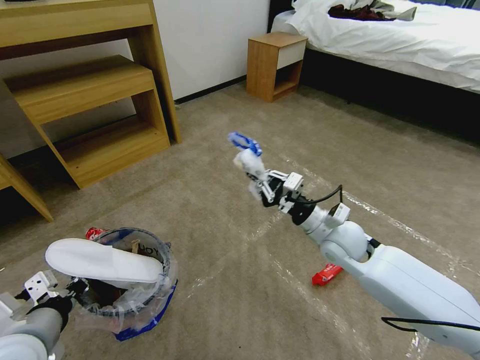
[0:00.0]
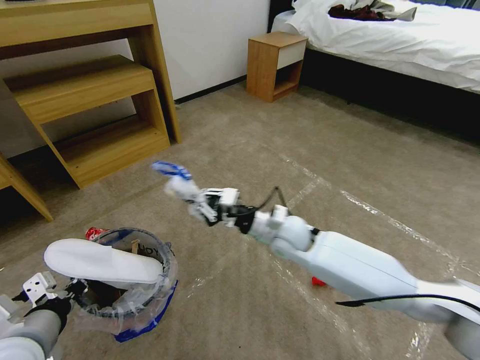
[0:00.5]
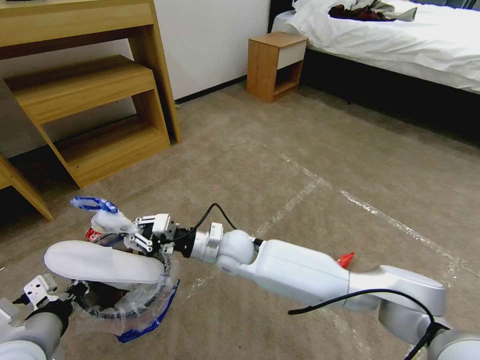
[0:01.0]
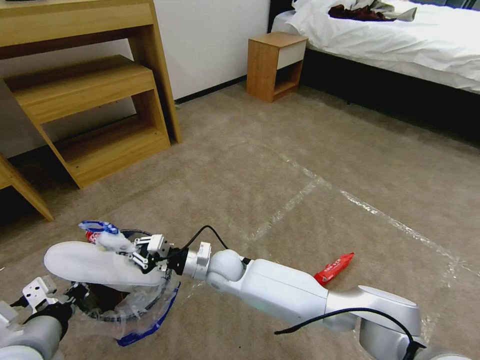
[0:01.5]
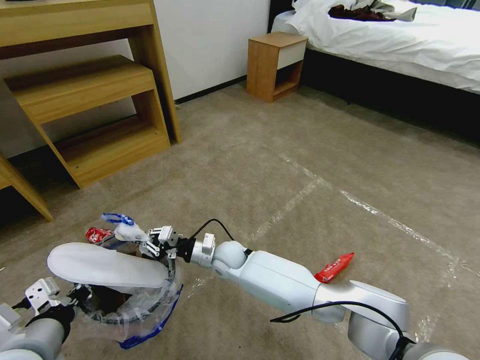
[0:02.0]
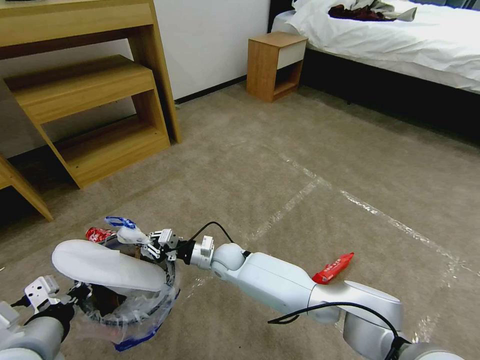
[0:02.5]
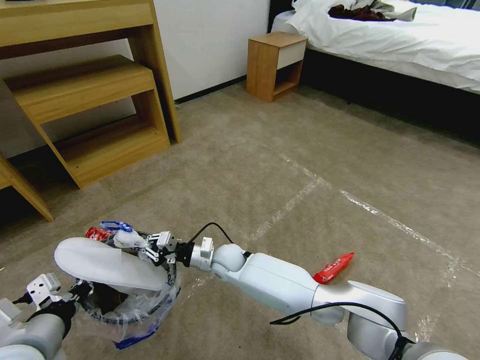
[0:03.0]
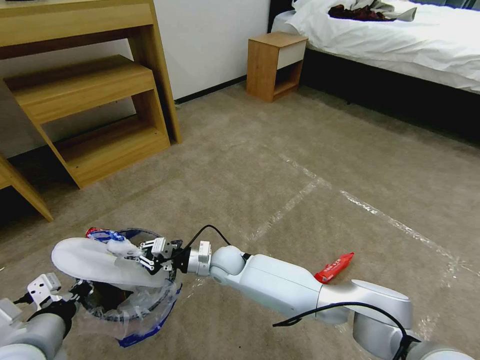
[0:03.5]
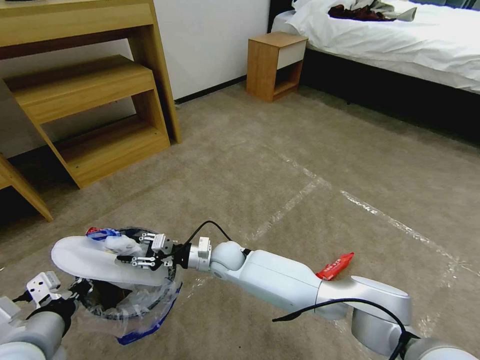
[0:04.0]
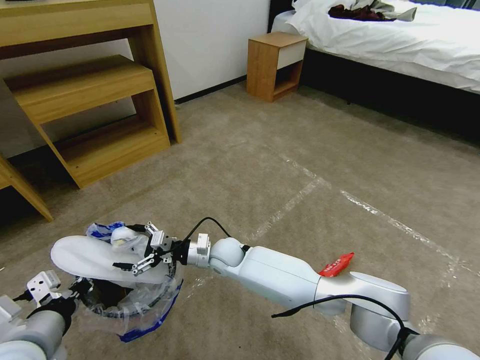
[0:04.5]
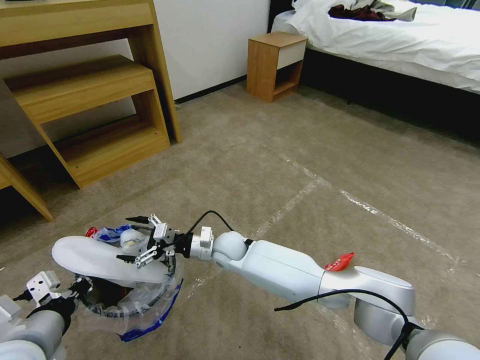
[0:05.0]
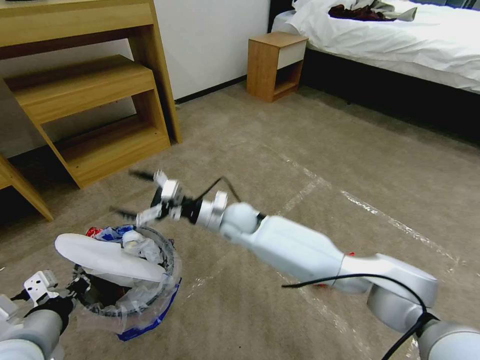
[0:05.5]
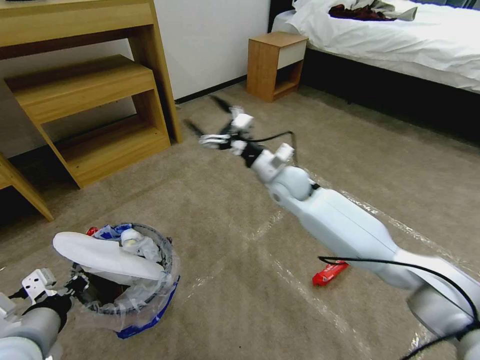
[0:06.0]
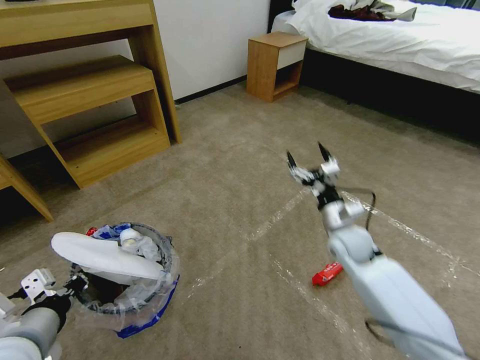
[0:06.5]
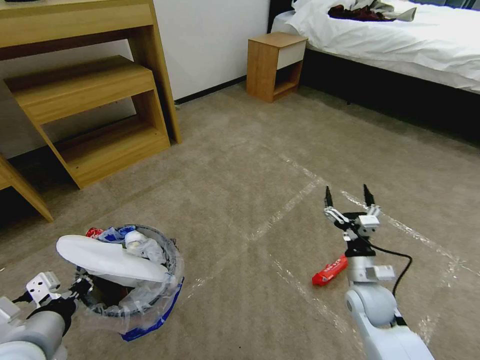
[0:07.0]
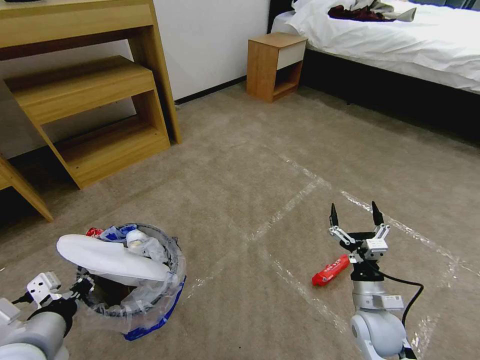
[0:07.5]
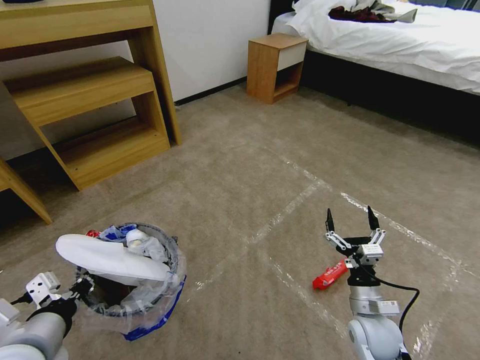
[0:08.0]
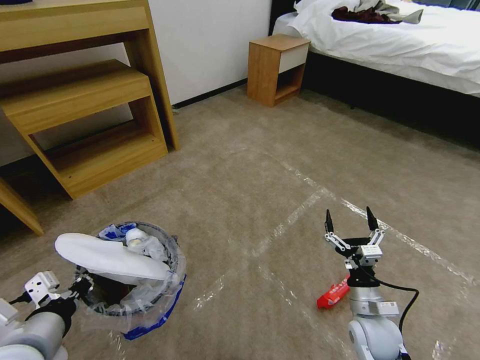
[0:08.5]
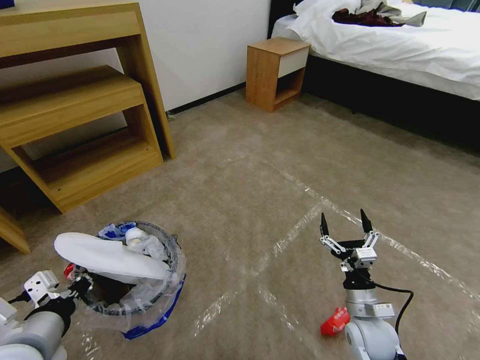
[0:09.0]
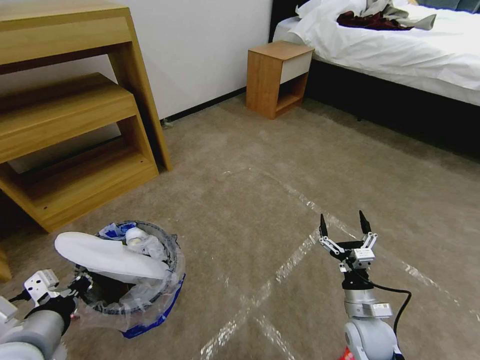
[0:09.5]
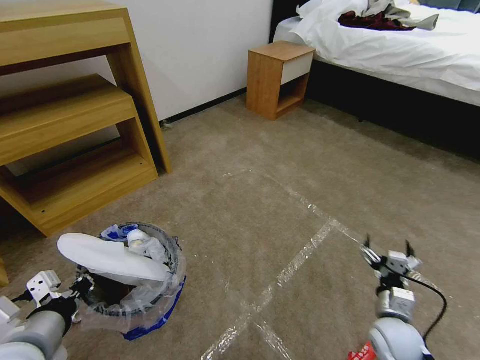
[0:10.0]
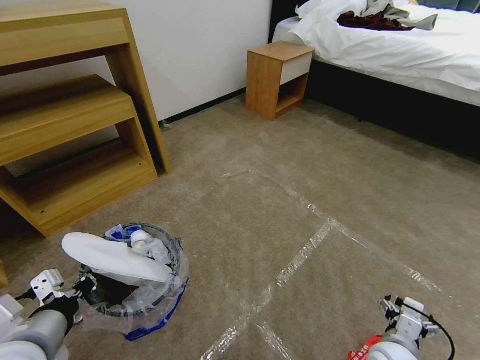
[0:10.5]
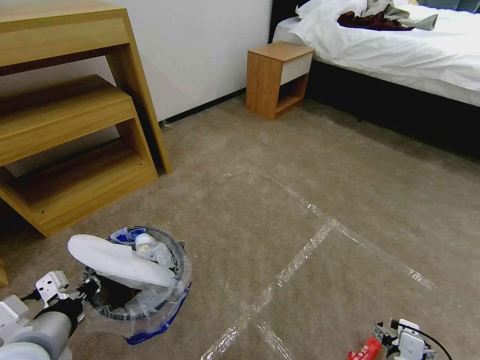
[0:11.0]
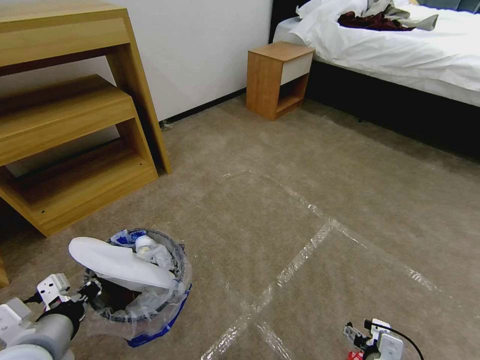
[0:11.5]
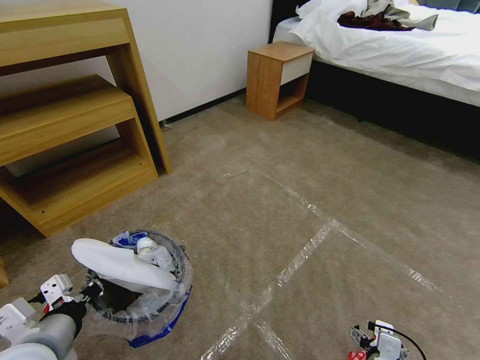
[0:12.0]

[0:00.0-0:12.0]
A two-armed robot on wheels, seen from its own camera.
Task of the whole recording: Pick up the trash bin and place the garbage on the floor into it.
0.0 to 2.0 s: The right gripper shifts approximately 30 cm to the left and downward.
2.0 to 4.0 s: The right gripper opens its fingers.
4.0 to 6.0 s: The right gripper shifts about 25 cm upward, to the right and forward, and opens.
6.0 to 8.0 s: The right gripper shifts approximately 35 cm backward, downward and to the right.
8.0 to 10.0 s: The right gripper shifts some 5 cm to the right.
10.0 to 12.0 s: The right gripper heads backward and to the left, covering approximately 10 cm.

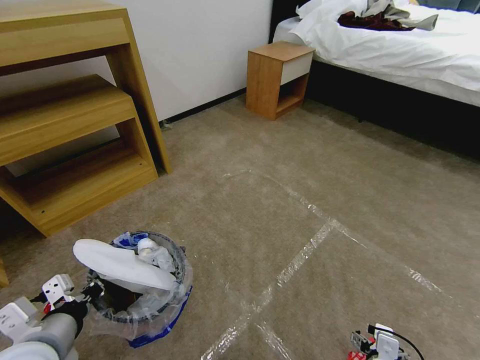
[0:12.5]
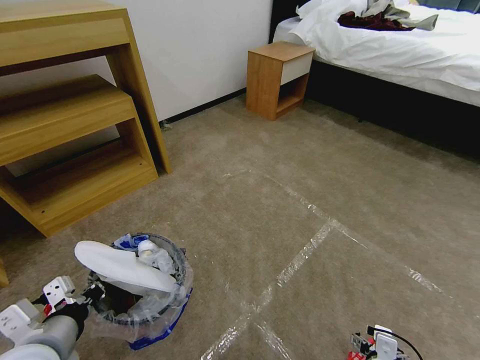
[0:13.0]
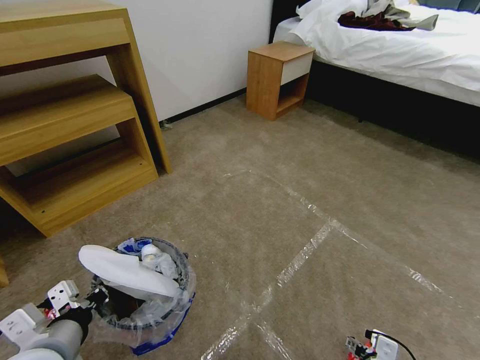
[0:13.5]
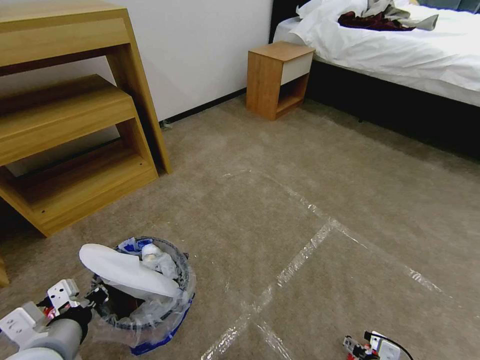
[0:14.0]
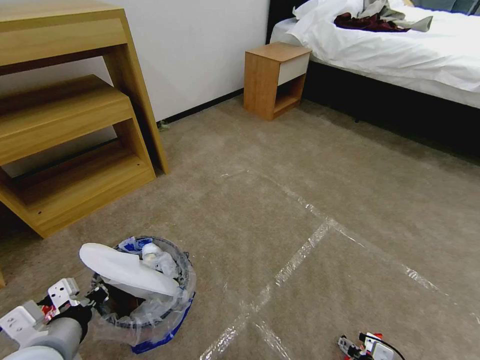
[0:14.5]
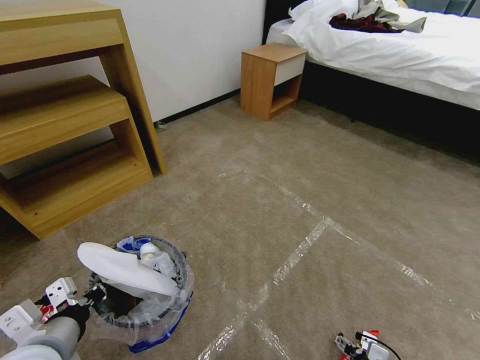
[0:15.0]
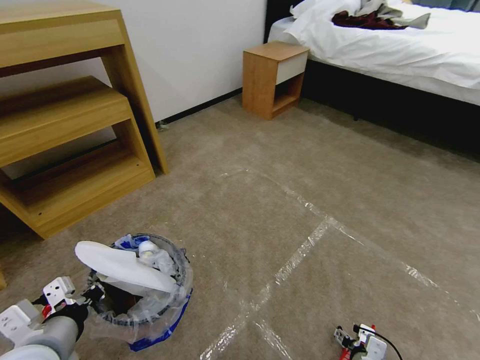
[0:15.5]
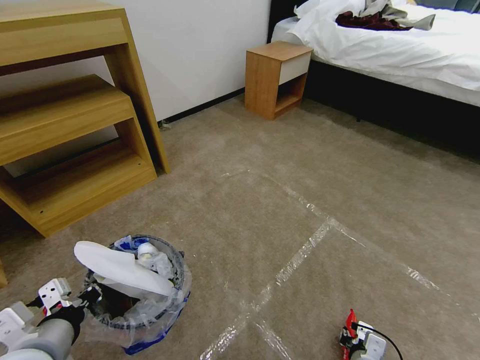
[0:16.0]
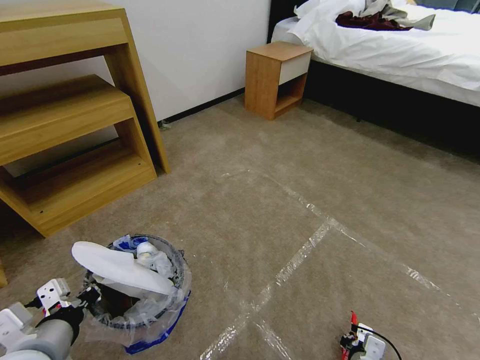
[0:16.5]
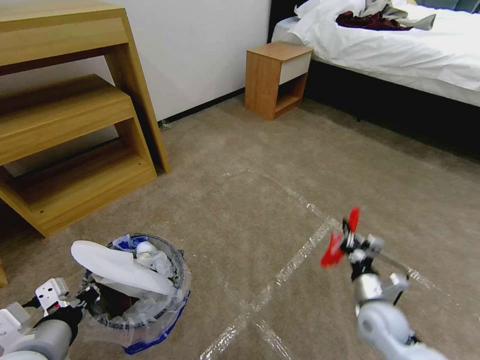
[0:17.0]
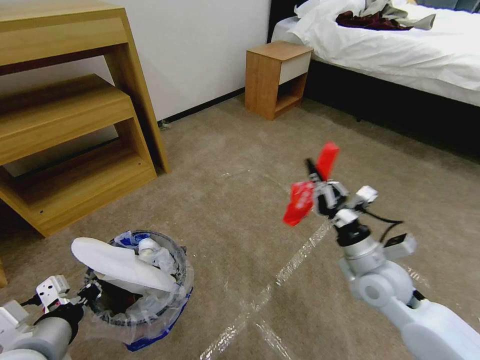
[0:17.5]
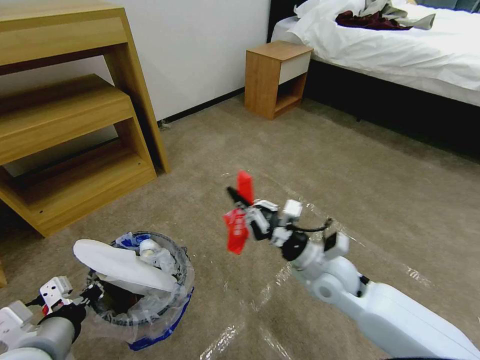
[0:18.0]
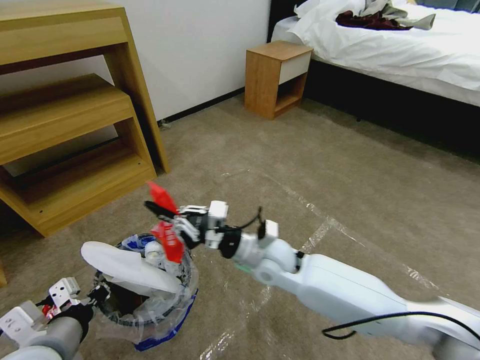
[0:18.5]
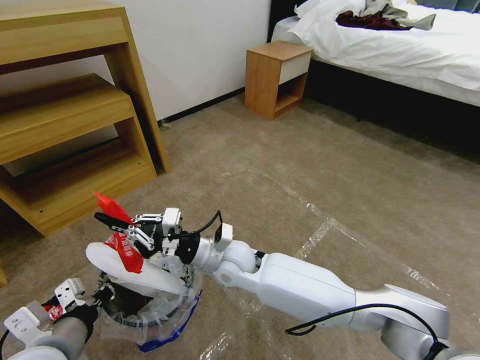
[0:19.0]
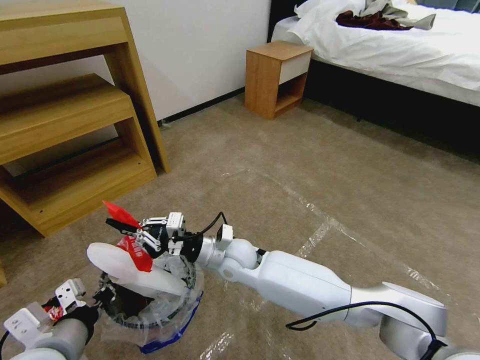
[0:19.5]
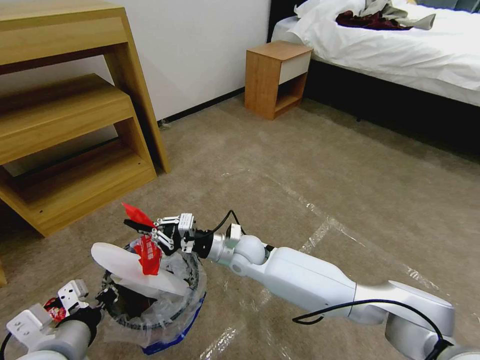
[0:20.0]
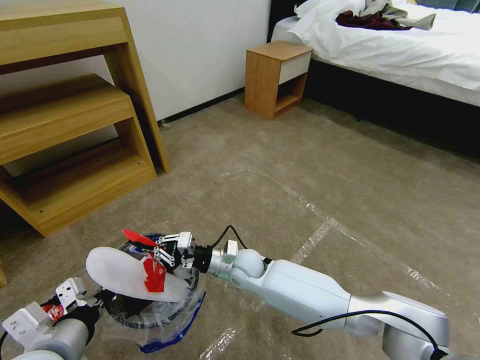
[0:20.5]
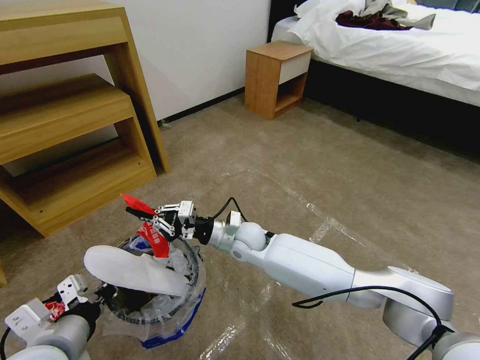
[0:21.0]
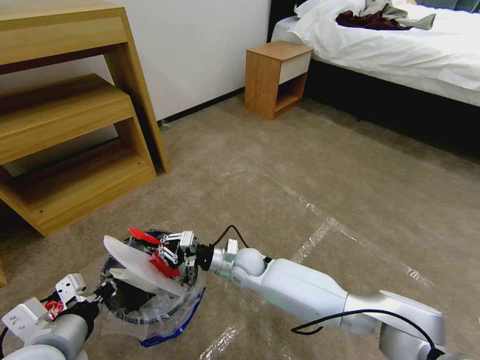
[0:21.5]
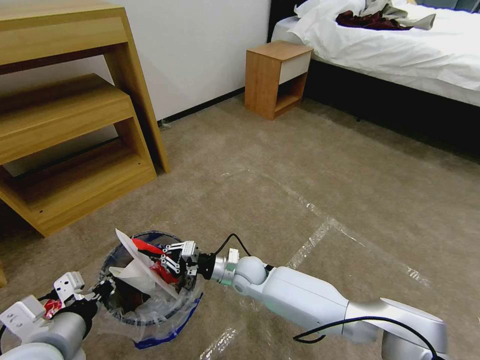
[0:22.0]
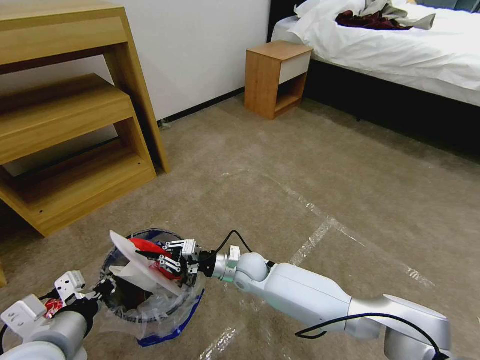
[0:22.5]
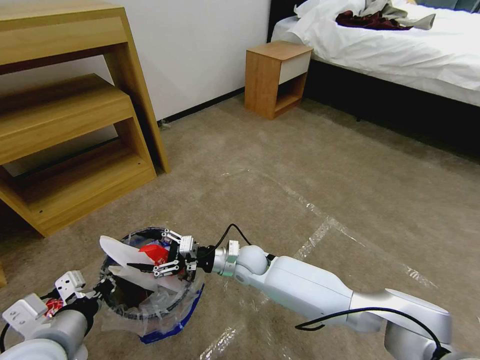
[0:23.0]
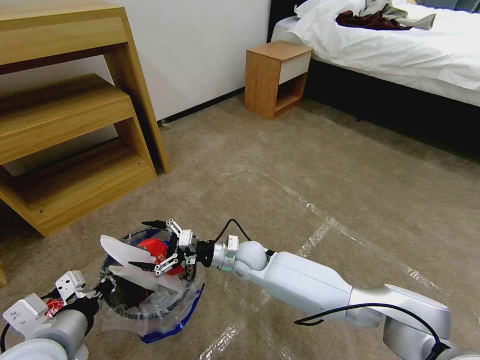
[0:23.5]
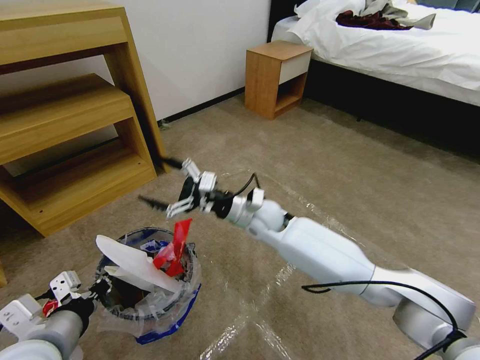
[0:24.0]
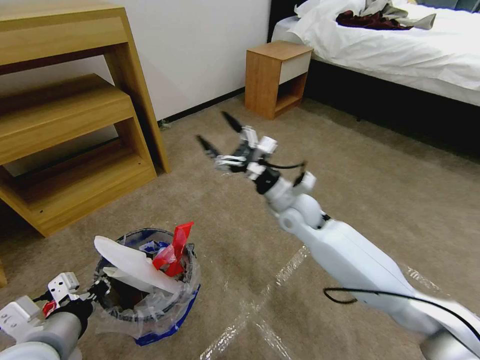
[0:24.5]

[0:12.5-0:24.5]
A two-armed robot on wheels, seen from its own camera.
Task of the whole recording: Pick up the trash bin and place the garbage on the floor into it.
12.5 to 14.5 s: The right gripper moves downward, approximately 10 cm.
14.5 to 16.5 s: The right gripper closes its fingers.
16.5 to 18.5 s: The right gripper heads upward, forward and to the left, covering roughly 35 cm.
18.5 to 20.5 s: The right gripper moves to the left and downward, approximately 15 cm.
20.5 to 22.5 s: The right gripper reaches approximately 5 cm upward, then returns.
22.5 to 24.5 s: The right gripper goes about 20 cm upward and to the right, and opens up.

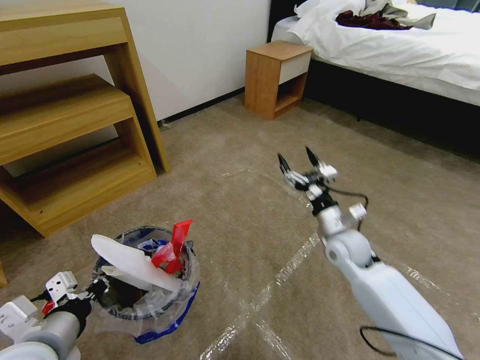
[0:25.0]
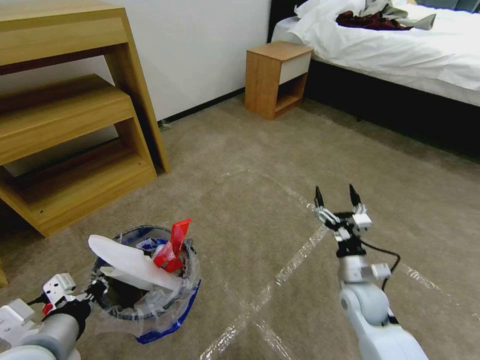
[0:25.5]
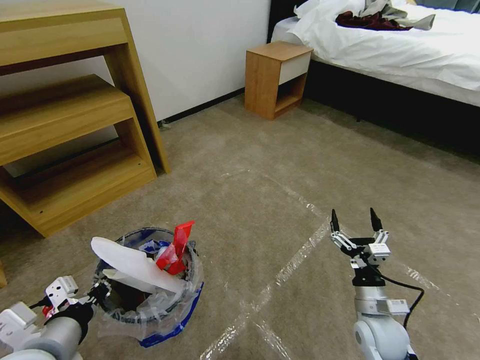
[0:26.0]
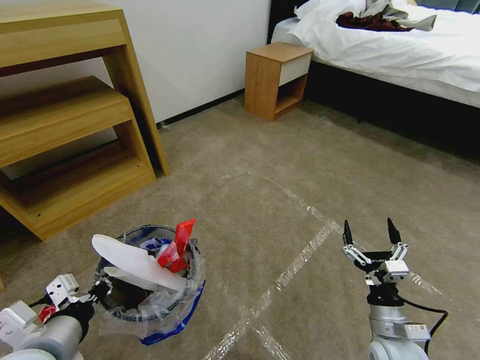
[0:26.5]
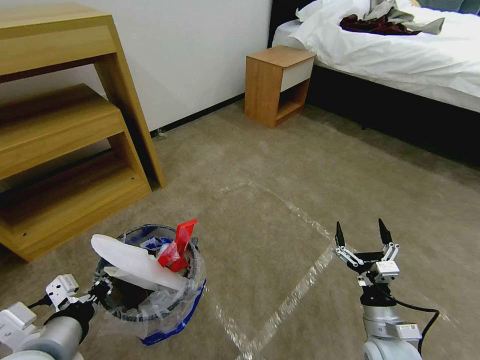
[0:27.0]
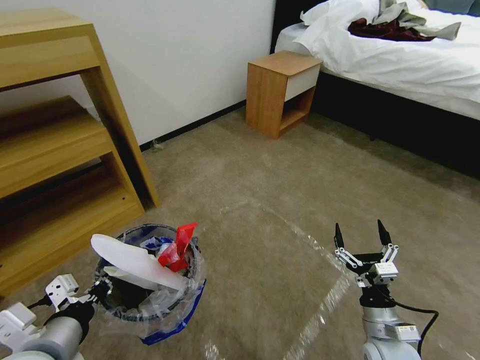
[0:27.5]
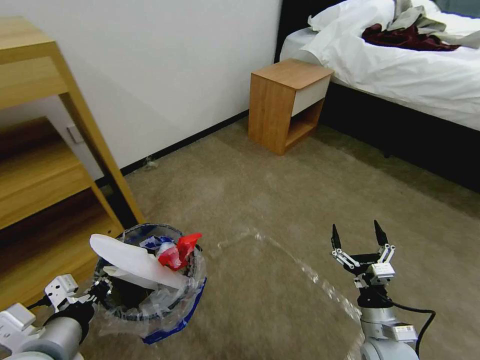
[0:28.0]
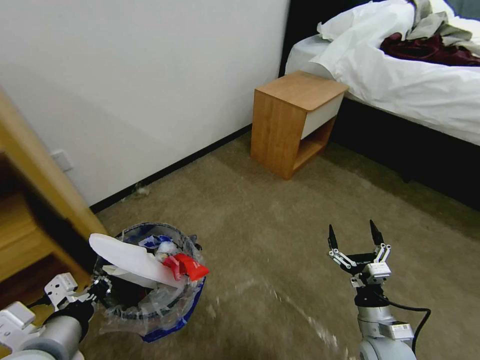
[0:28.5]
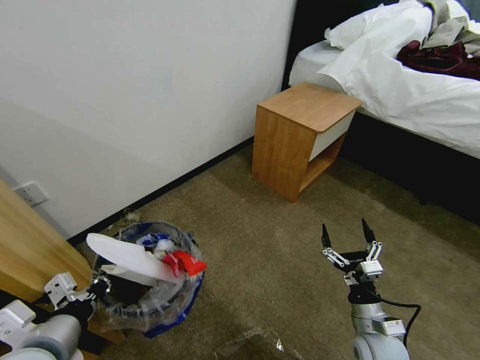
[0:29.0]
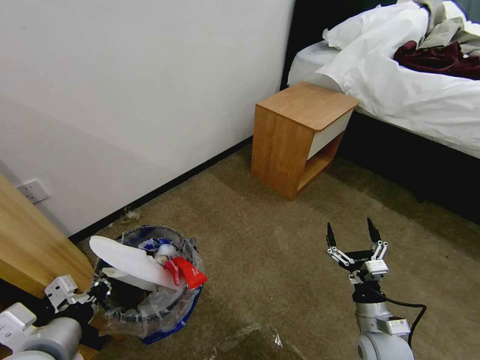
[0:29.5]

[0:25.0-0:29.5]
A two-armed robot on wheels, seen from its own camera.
Task of the whole recording: Pick up the trash bin and place the garbage on the floor into it.
25.0 to 27.0 s: The right gripper goes some 20 cm backward and downward.
